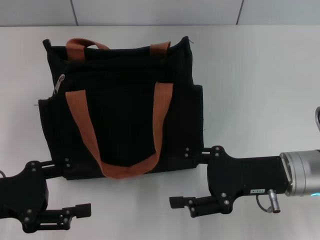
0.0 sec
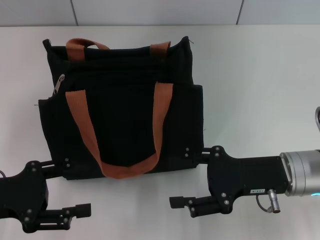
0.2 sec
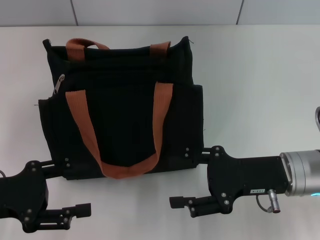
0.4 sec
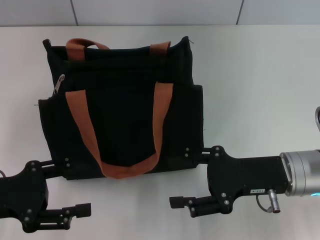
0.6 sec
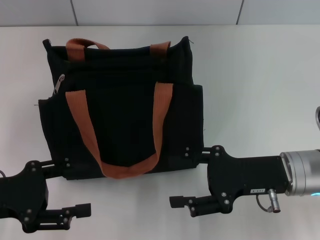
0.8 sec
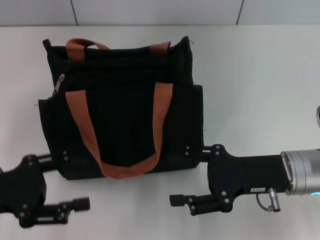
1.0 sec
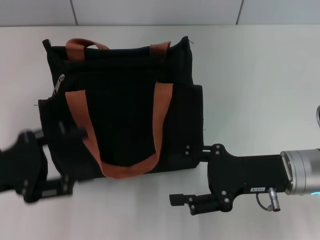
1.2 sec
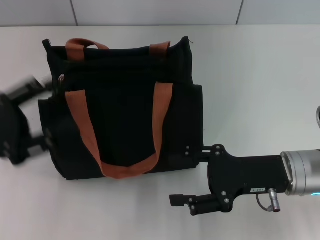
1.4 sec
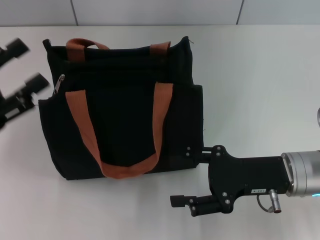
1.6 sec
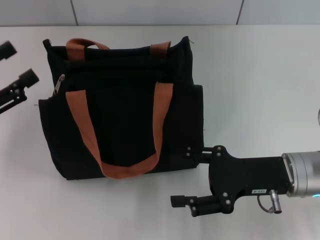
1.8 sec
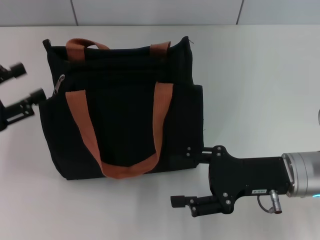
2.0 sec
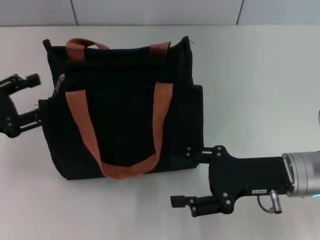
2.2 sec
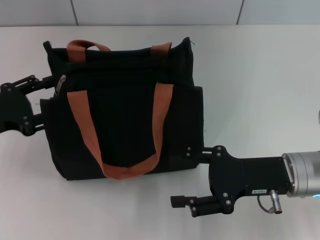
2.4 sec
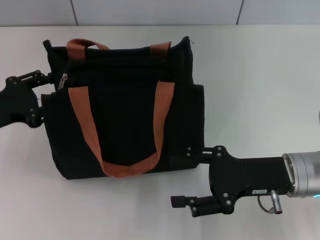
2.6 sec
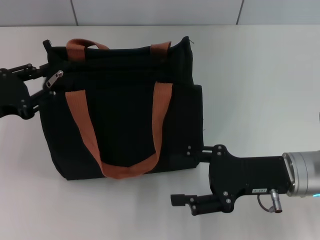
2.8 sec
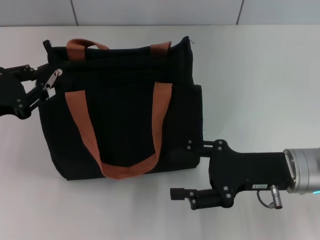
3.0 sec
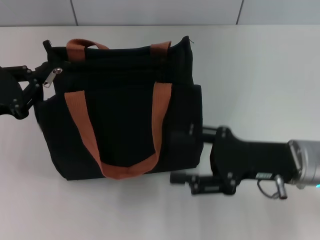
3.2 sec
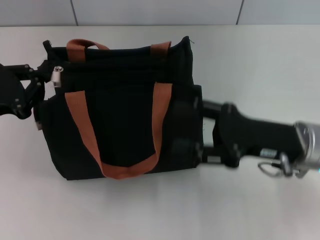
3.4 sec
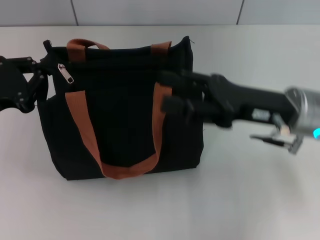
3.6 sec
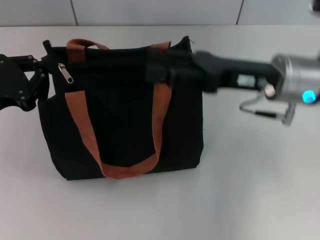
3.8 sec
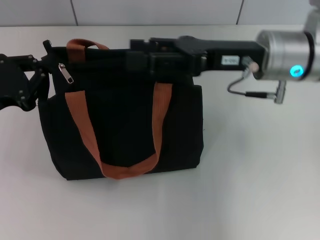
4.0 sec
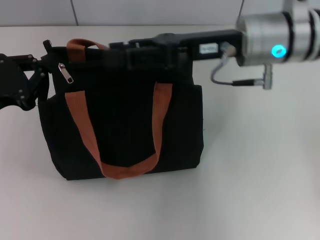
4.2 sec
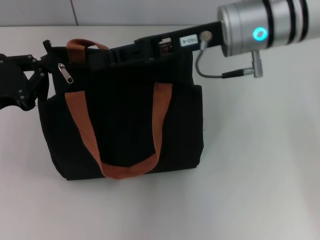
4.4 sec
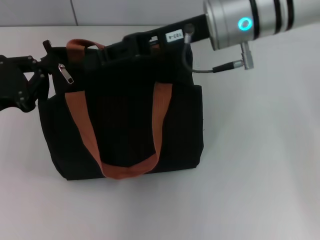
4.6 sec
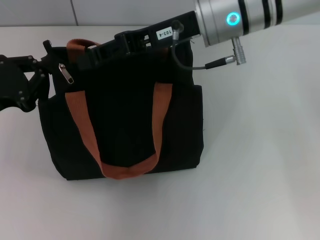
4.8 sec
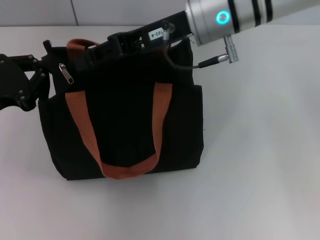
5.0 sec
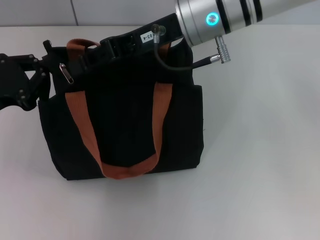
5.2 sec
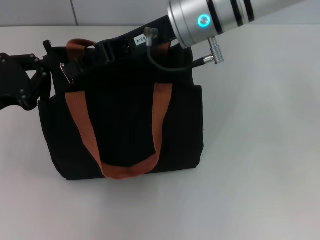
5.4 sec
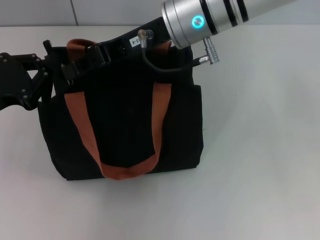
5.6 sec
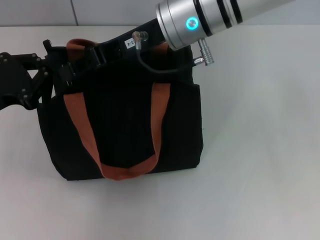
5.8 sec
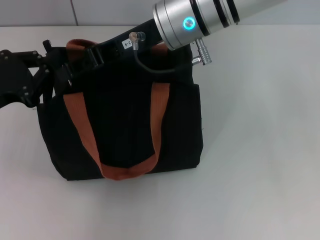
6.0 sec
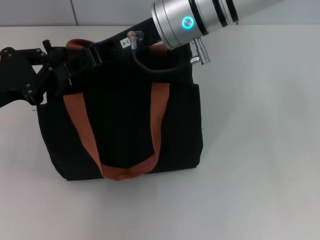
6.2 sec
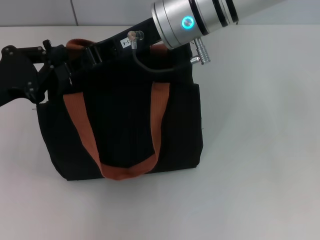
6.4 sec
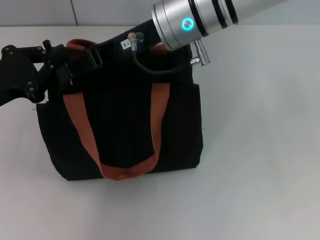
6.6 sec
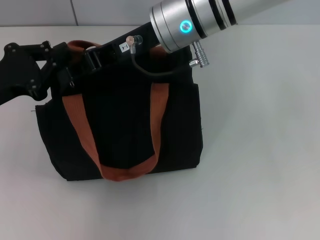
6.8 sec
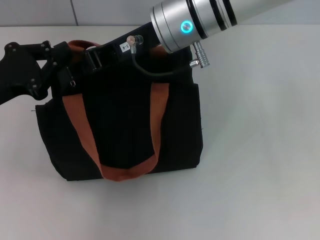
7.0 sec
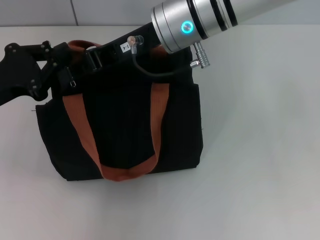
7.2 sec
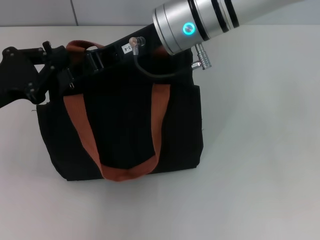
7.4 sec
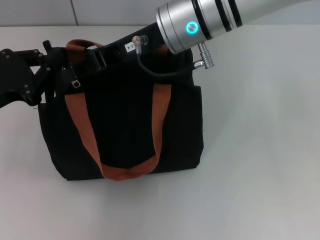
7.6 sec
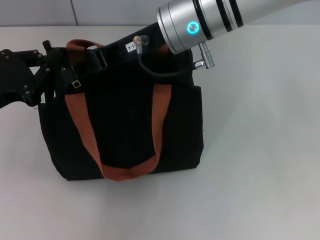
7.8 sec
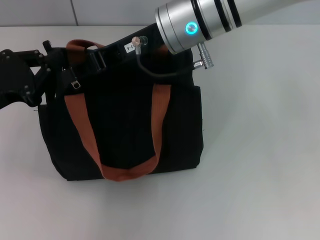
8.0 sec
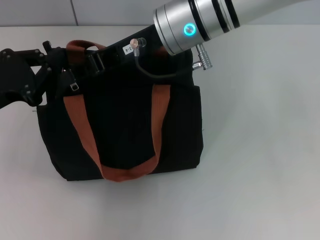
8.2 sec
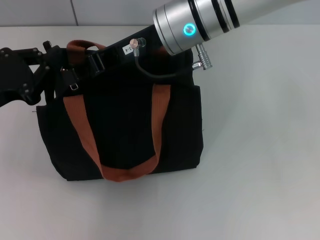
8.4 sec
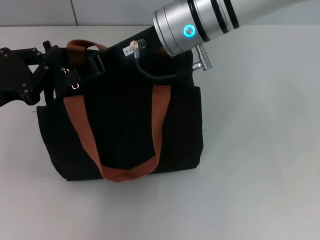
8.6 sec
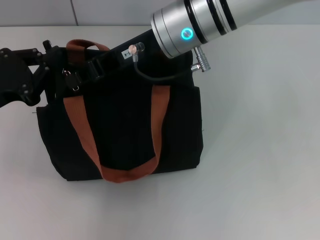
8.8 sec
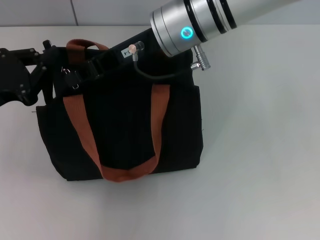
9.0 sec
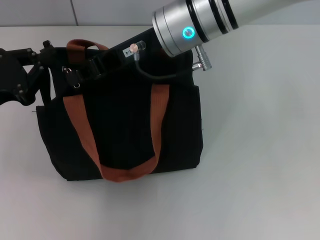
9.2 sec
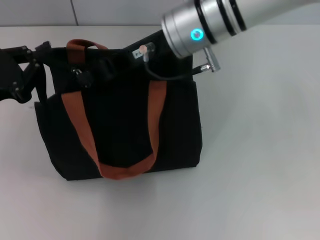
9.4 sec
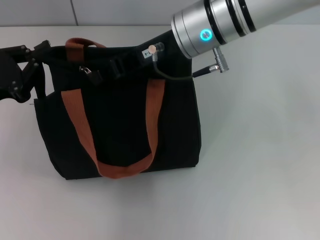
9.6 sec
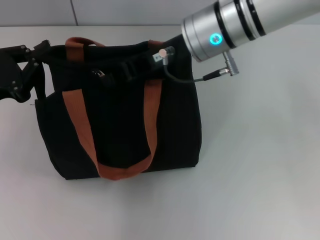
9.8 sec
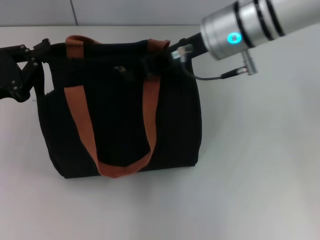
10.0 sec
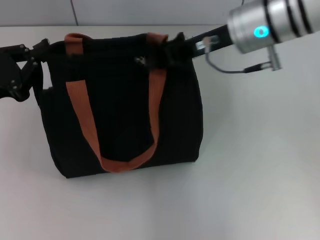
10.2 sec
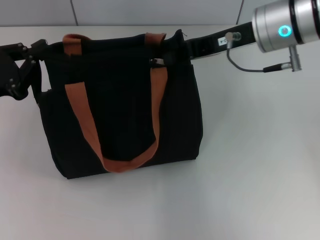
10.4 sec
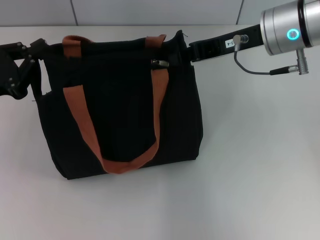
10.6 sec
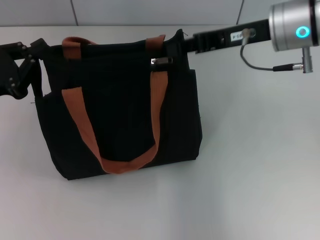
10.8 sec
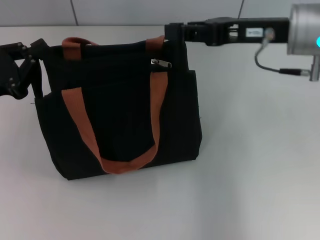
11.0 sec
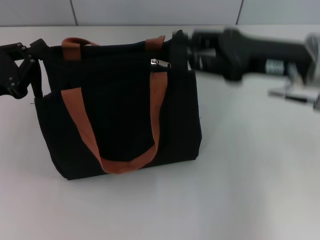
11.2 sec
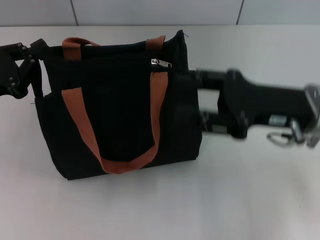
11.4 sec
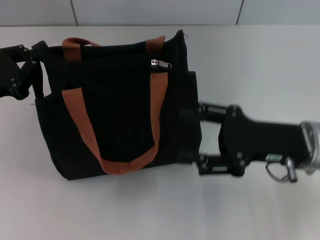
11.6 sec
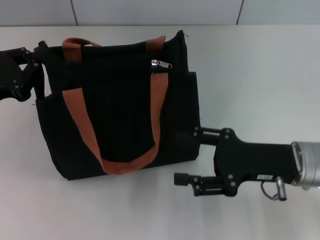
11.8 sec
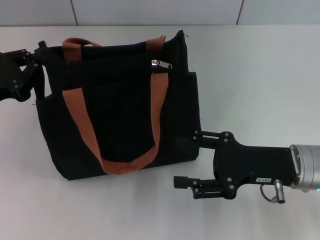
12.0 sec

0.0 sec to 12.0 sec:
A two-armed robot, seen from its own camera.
Step, 0.0 sec to 10.6 sec: Pull up the zipper with your right hand.
1.6 sec to 3.0 sec: The left gripper ends up approximately 5 cm from where it was, and closes up.
3.0 sec to 4.4 sec: The left gripper closes up, while the right gripper is displaced upward, forward and to the left by approximately 20 cm.
4.4 sec to 6.0 sec: The right gripper shifts roughly 5 cm to the left.
6.0 sec to 7.6 sec: Neither gripper changes place.
7.6 sec to 9.0 sec: The grippers make only small movements.
9.0 sec to 10.4 sec: The right gripper is displaced to the right by roughly 10 cm.
10.4 sec to 12.0 sec: The right gripper moves downward, backward and to the right, about 20 cm, and opens up.

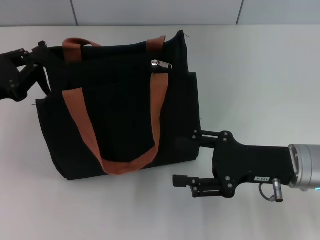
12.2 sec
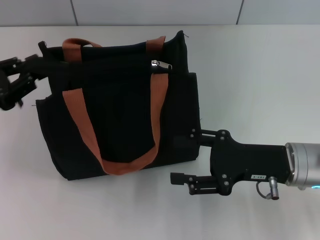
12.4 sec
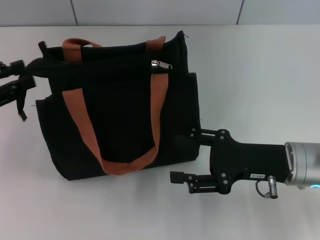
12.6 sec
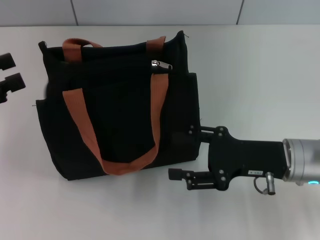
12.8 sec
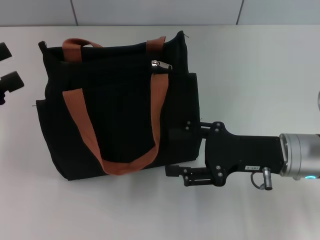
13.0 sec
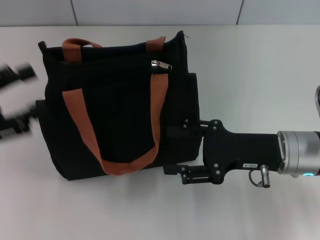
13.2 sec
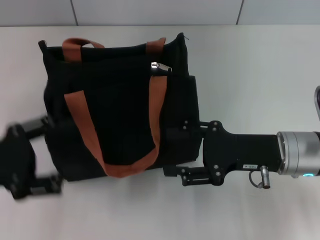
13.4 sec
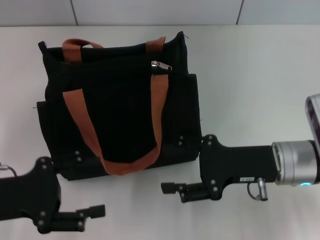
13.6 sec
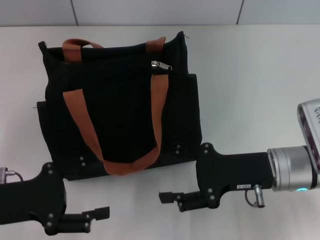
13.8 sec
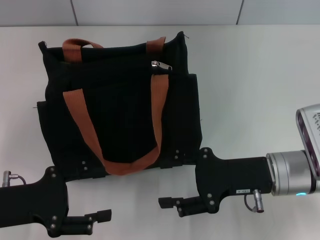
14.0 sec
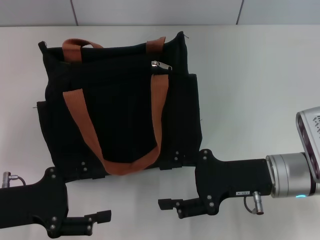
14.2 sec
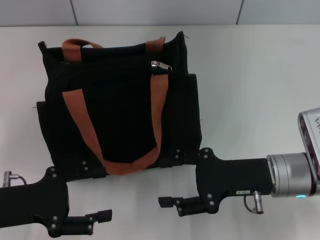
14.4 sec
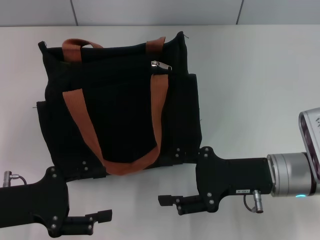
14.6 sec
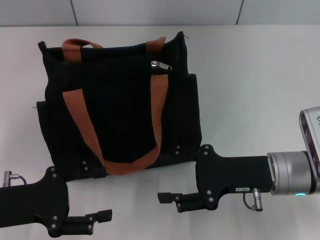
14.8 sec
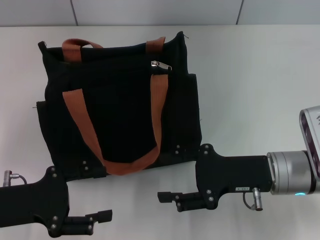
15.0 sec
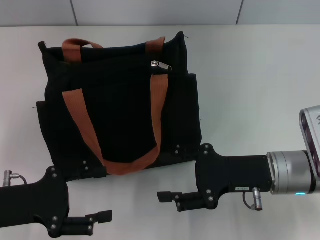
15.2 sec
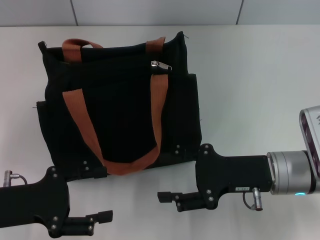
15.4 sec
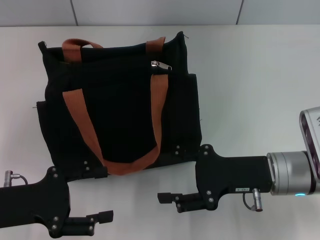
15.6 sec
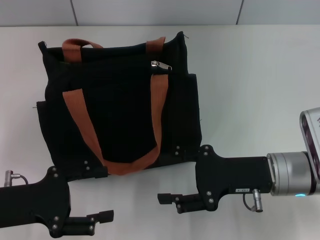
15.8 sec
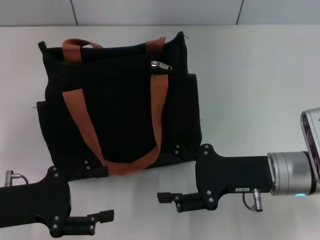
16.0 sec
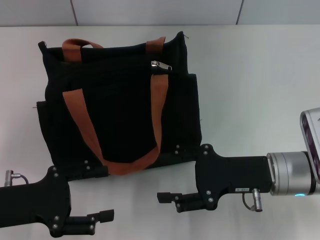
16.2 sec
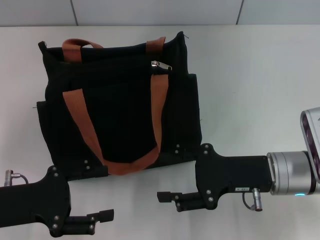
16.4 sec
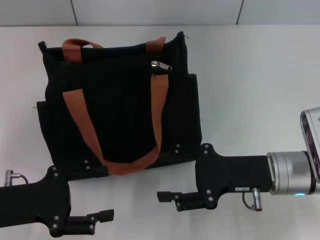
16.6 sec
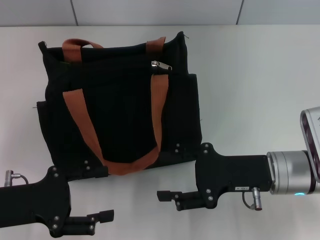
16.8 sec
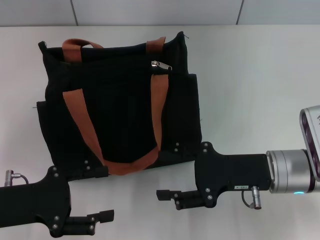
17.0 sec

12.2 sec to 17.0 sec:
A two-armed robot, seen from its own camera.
12.2 sec to 13.8 sec: The left gripper is displaced backward by approximately 10 cm, and opens.
13.8 sec to 17.0 sec: Neither gripper changes place.

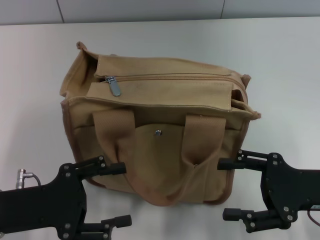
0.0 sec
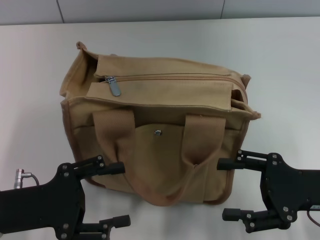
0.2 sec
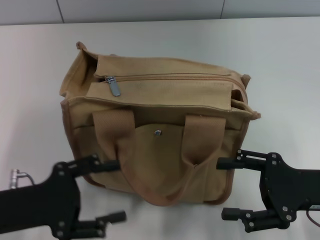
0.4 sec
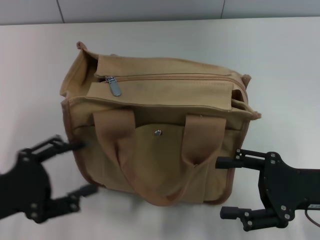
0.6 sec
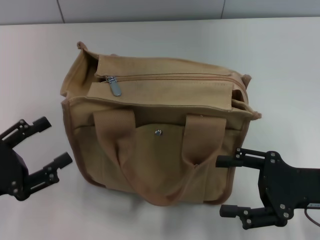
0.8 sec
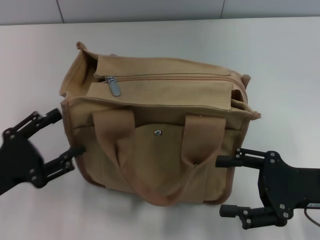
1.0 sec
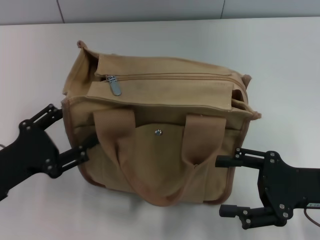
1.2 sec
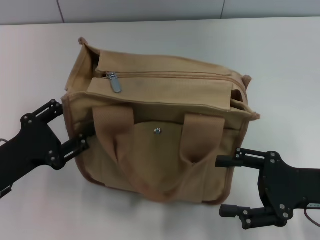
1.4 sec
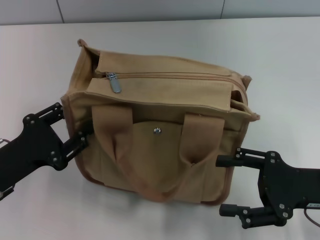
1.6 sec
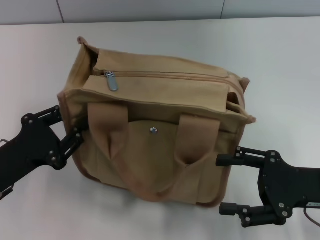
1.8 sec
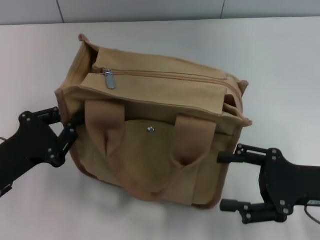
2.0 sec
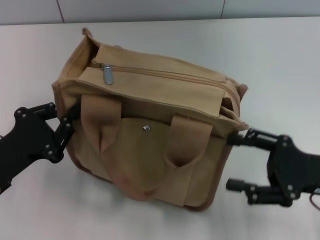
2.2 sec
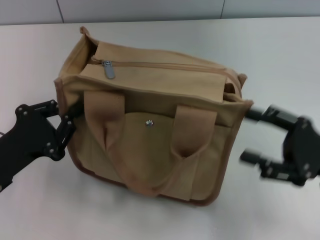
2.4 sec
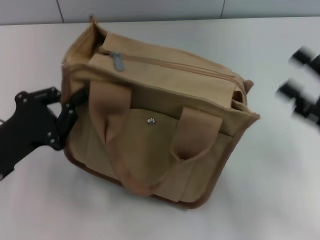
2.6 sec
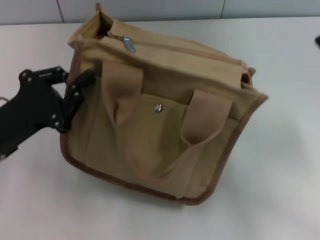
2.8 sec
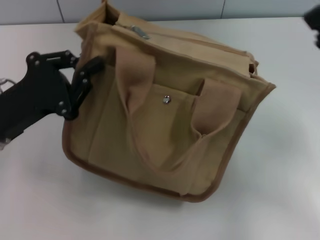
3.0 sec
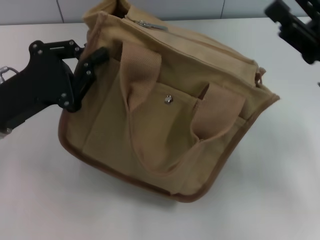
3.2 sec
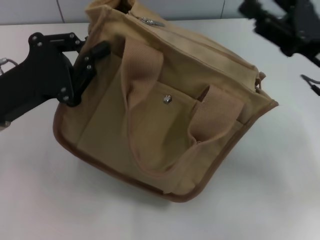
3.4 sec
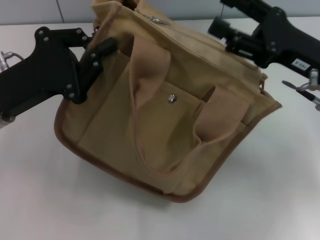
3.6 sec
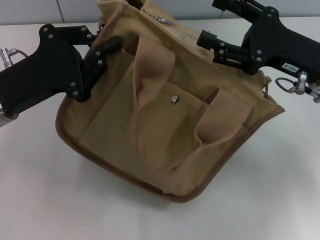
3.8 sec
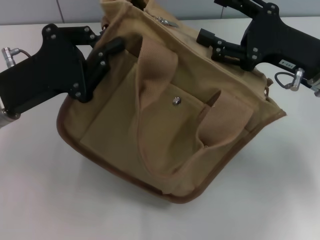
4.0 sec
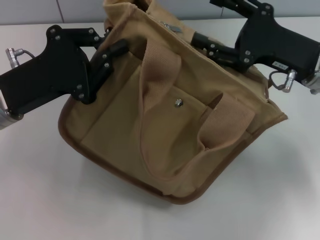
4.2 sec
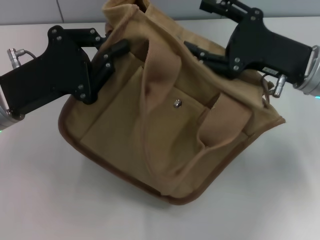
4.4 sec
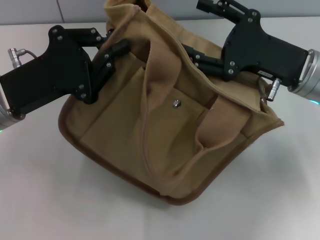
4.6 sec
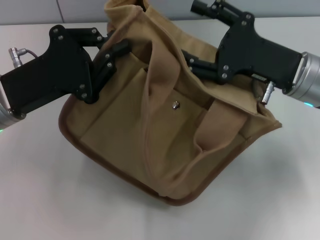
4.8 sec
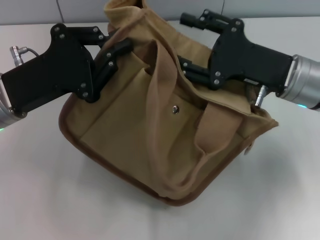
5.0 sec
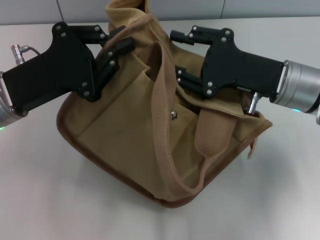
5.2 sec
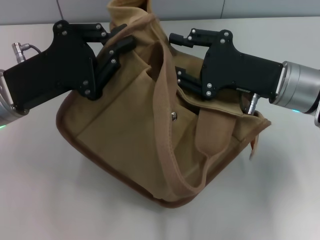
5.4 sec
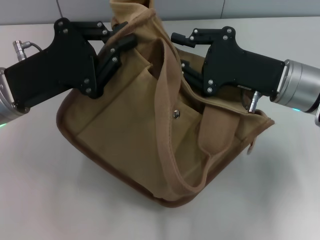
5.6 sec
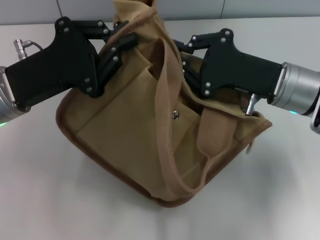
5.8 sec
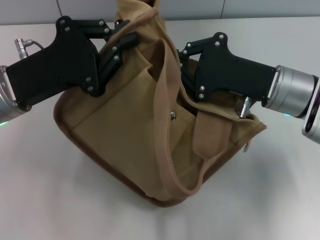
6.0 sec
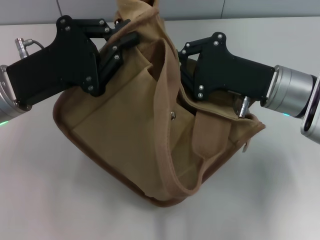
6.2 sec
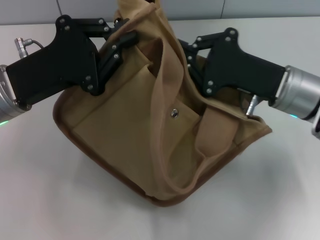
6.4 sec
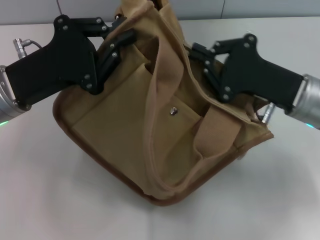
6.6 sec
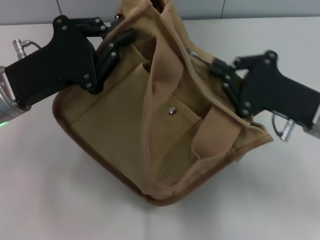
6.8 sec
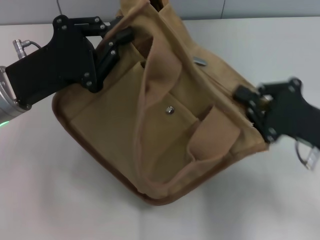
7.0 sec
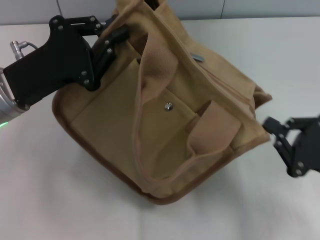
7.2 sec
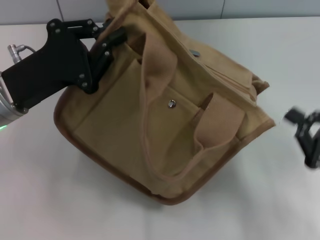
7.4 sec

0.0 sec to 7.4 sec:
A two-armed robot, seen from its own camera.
1.4 sec to 3.0 sec: The right gripper moves approximately 5 cm. Meanwhile the left gripper moves forward, roughly 5 cm, and closes its fingers.
3.0 sec to 4.4 sec: The right gripper moves forward and to the left, some 10 cm.
4.4 sec to 6.0 sec: The right gripper closes its fingers.
6.0 sec to 7.4 sec: The right gripper heads backward and to the right, covering some 20 cm.
